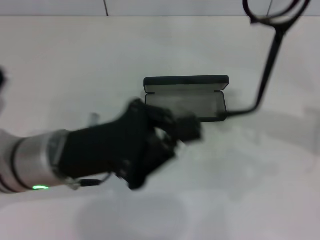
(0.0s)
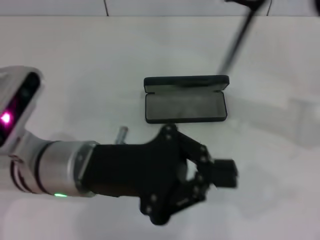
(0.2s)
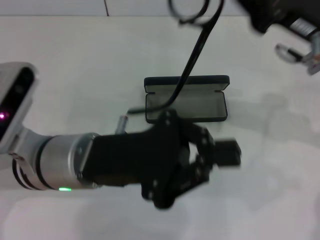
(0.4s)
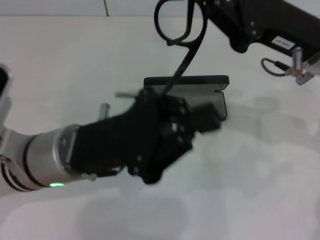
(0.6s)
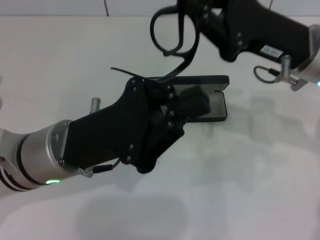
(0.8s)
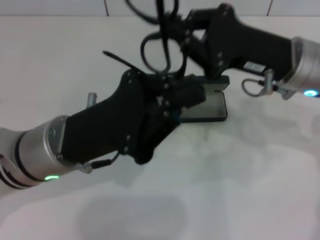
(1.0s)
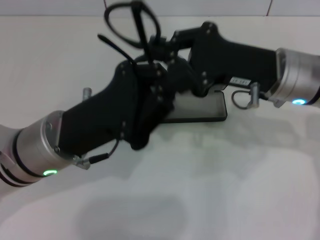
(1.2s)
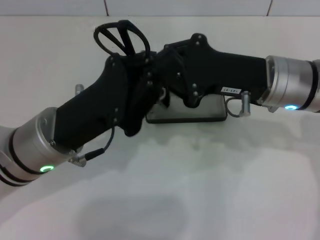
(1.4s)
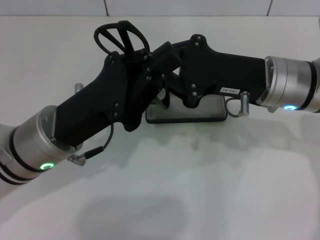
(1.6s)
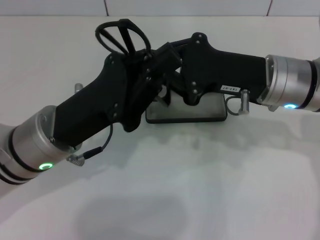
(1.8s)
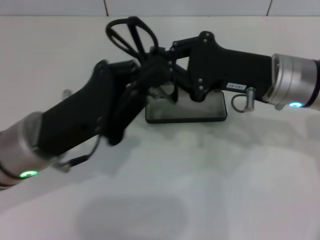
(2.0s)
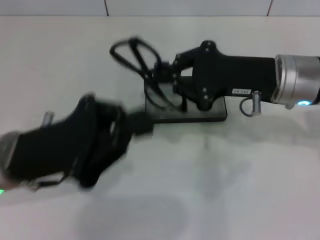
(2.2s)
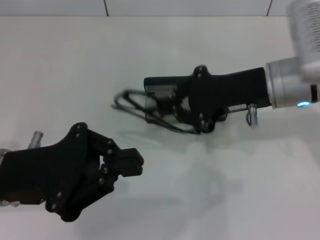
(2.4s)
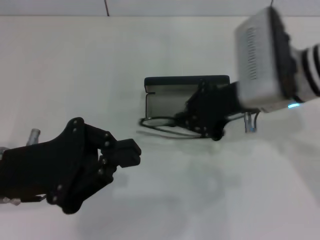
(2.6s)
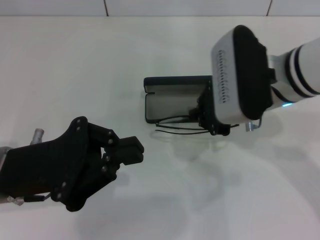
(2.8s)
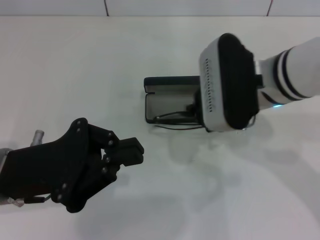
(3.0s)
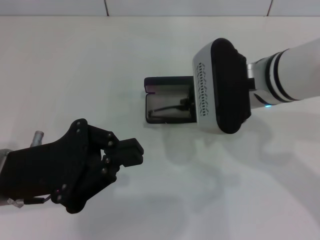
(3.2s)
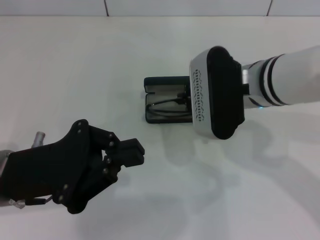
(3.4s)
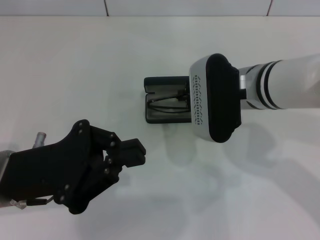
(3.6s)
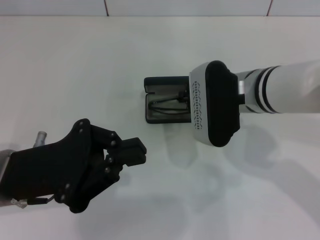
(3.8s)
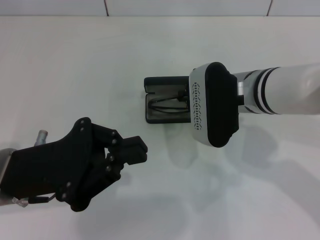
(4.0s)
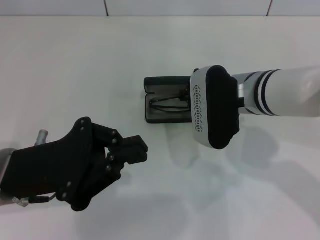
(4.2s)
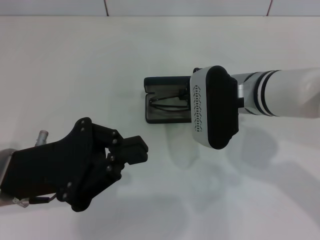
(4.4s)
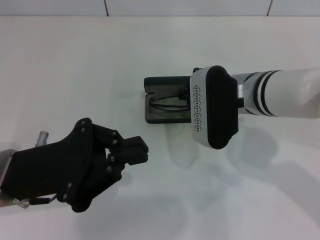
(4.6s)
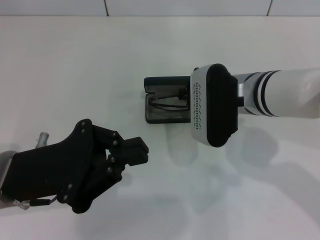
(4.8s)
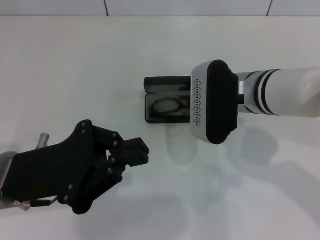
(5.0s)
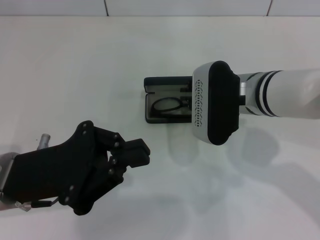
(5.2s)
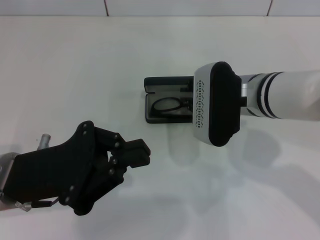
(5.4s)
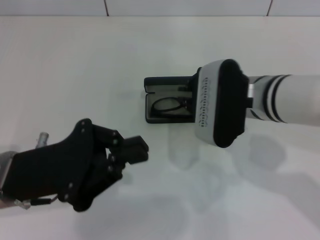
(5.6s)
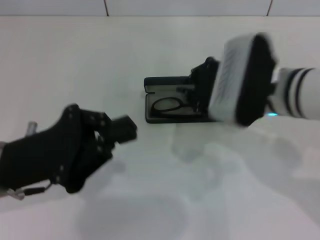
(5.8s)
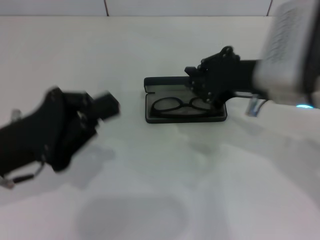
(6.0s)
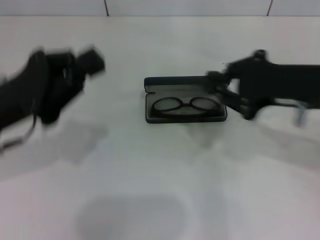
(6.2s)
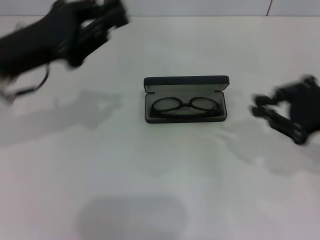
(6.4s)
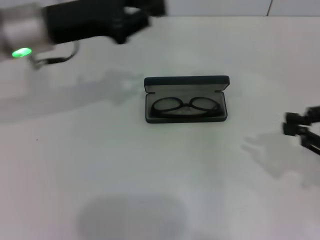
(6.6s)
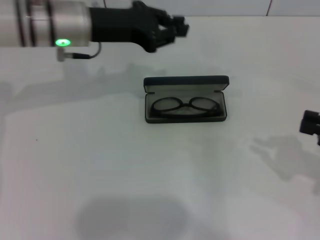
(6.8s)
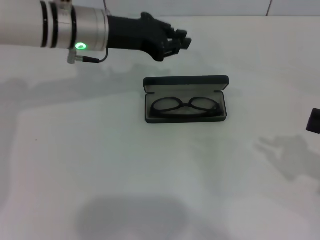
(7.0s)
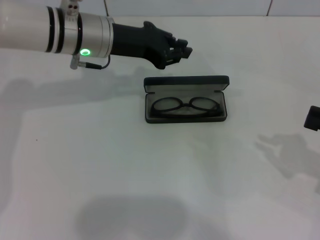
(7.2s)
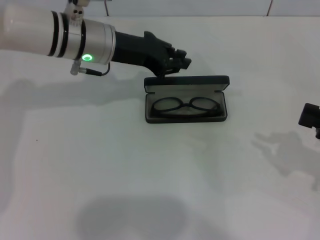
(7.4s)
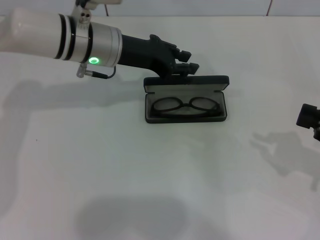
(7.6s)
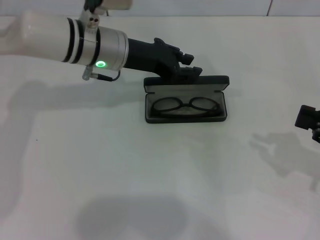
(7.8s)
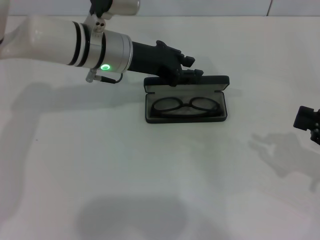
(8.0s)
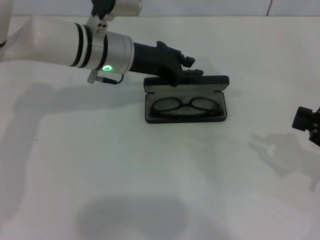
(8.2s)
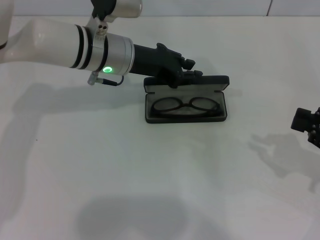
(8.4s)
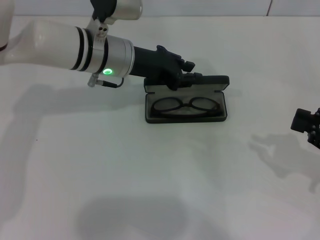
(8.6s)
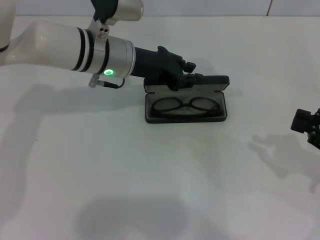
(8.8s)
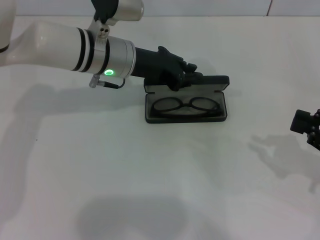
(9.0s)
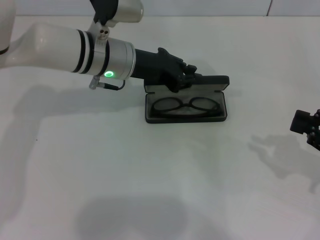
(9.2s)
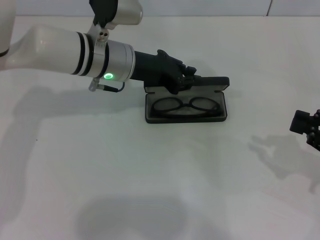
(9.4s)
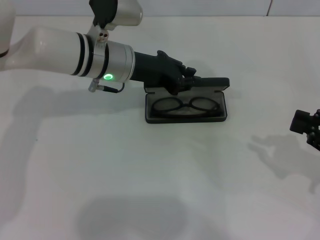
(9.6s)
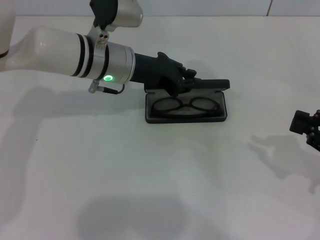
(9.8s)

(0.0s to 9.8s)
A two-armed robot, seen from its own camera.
Step, 2.0s - 5.4s: Put the glasses into the case with your right hand.
0.0s - 1.4s: The right gripper moves to the left and downward, approximately 15 cm.
1.4s - 2.8s: The left gripper moves to the left, roughly 5 cm.
2.8s - 4.2s: The right gripper shifts some 5 cm downward.
4.2s - 5.6s: The grippers make only small movements.
5.6s - 7.0s: The right gripper shifts approximately 25 cm to the right; the left gripper heads forward, covering roughly 20 cm.
7.0s - 8.4s: The grippers stay close to where they were, moving slightly.
8.4s - 9.8s: The two grippers keep their place.

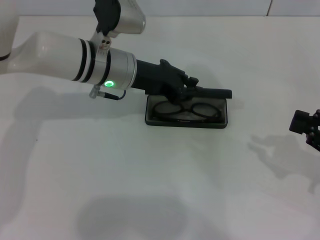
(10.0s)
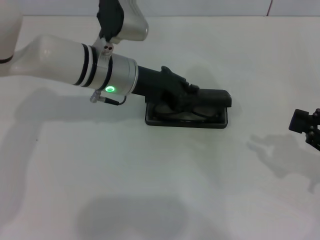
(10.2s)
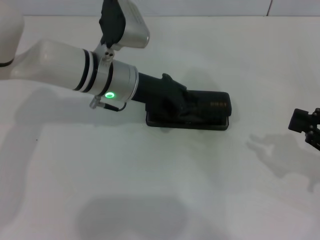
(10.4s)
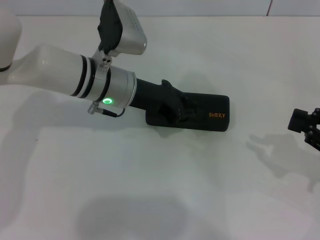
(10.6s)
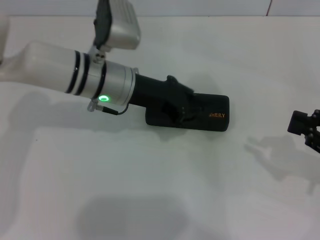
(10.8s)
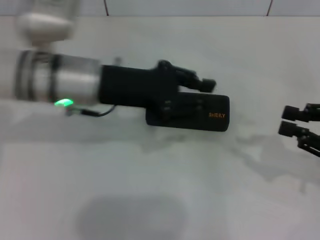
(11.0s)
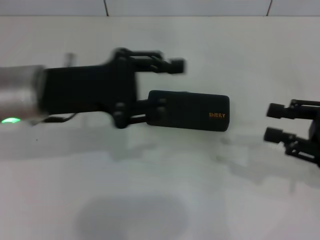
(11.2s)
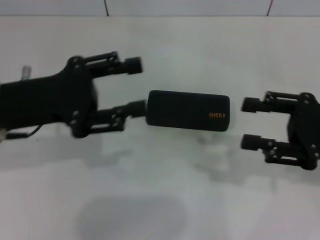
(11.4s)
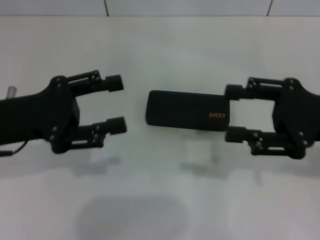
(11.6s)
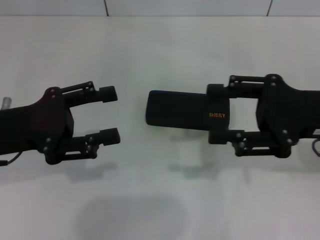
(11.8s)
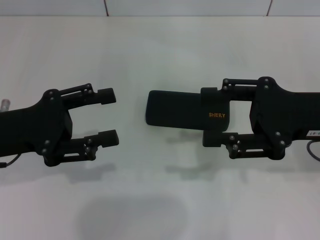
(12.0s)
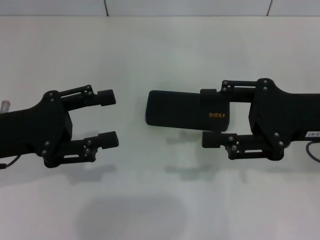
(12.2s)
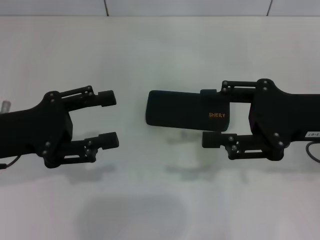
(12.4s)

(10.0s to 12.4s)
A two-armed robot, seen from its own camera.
10.0s - 11.2s: The left gripper travels backward, to the left and upward by roughly 15 cm.
11.2s - 12.4s: Both grippers travel together to the left, roughly 5 cm. The right gripper opens up; the left gripper opens up.

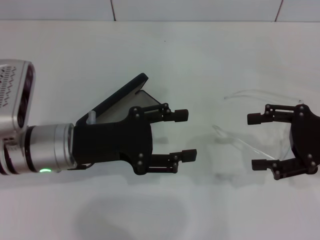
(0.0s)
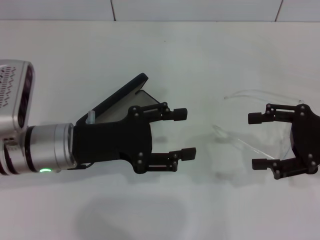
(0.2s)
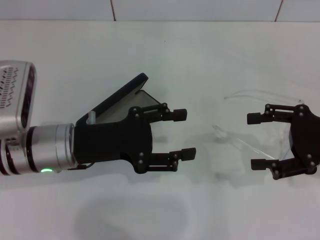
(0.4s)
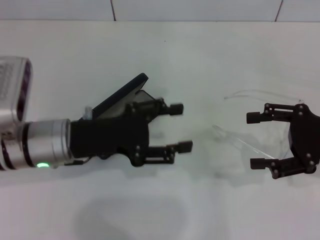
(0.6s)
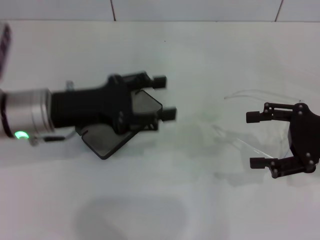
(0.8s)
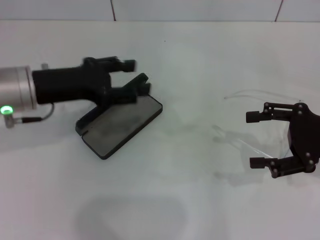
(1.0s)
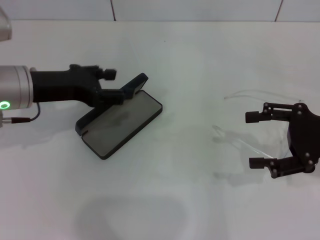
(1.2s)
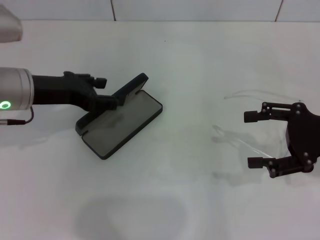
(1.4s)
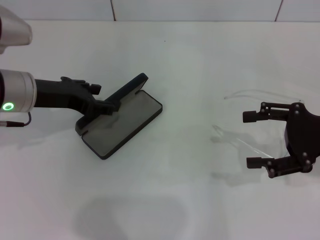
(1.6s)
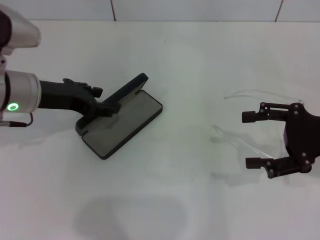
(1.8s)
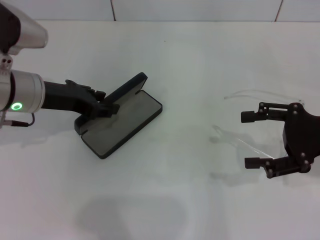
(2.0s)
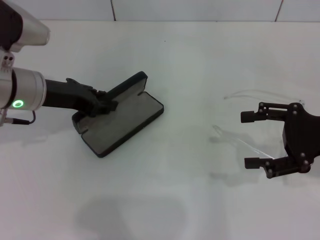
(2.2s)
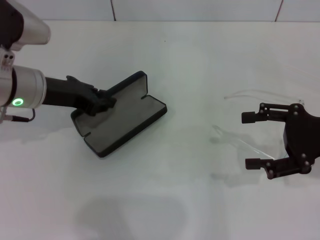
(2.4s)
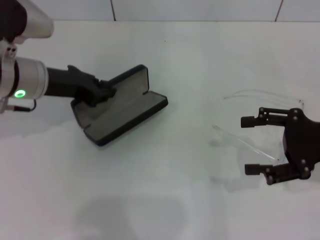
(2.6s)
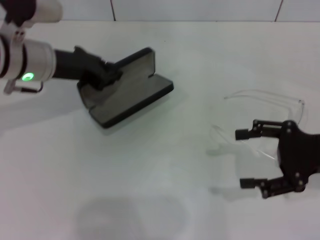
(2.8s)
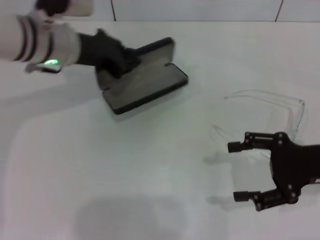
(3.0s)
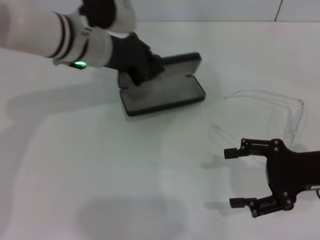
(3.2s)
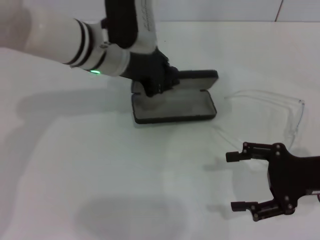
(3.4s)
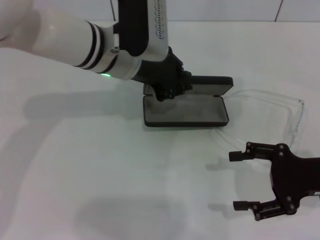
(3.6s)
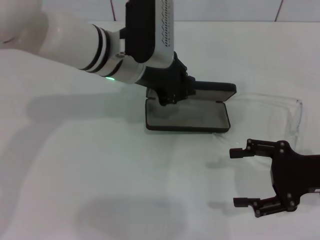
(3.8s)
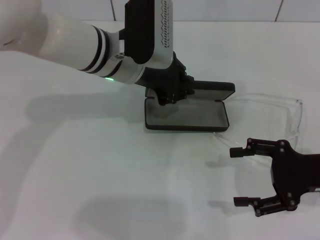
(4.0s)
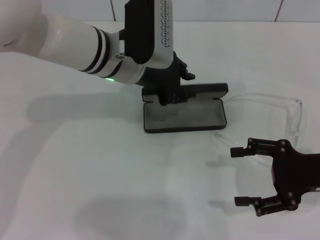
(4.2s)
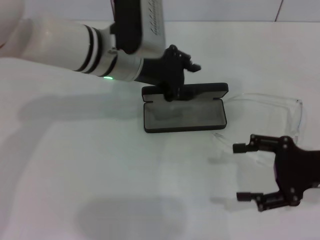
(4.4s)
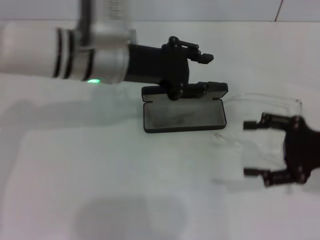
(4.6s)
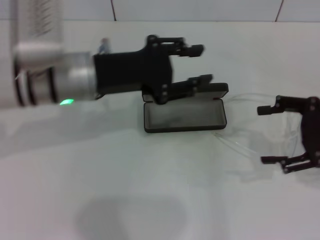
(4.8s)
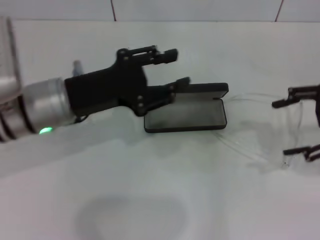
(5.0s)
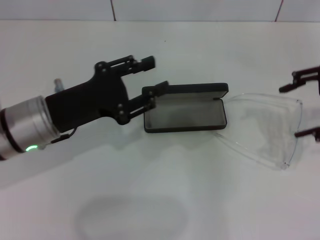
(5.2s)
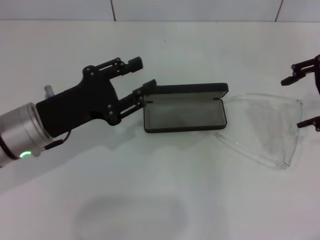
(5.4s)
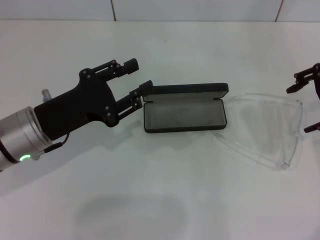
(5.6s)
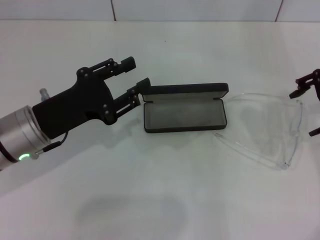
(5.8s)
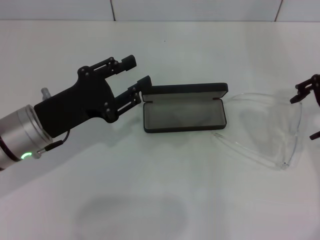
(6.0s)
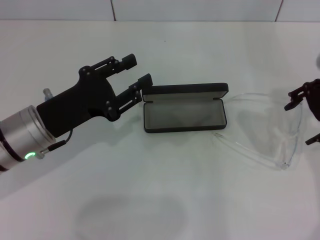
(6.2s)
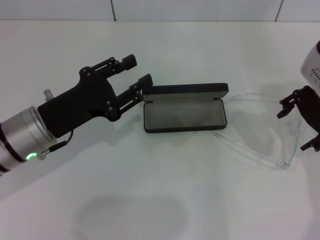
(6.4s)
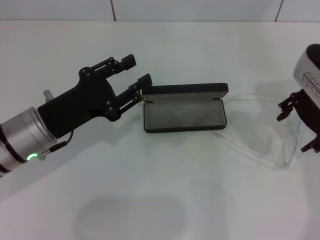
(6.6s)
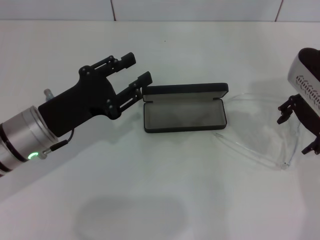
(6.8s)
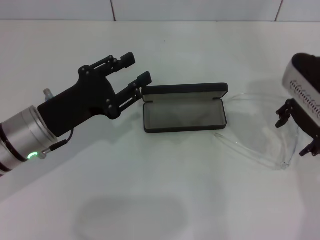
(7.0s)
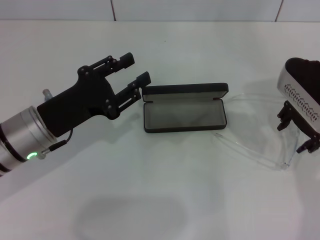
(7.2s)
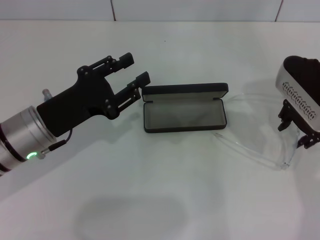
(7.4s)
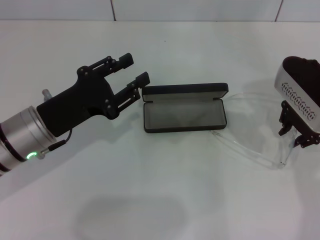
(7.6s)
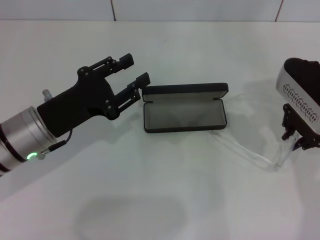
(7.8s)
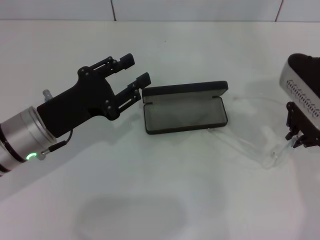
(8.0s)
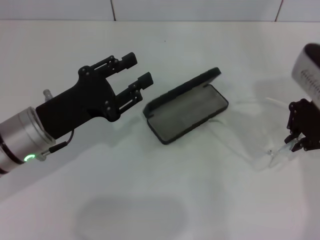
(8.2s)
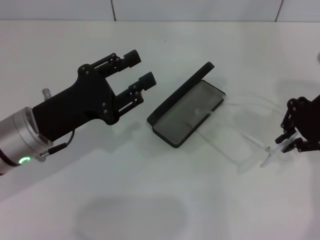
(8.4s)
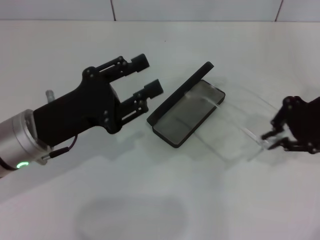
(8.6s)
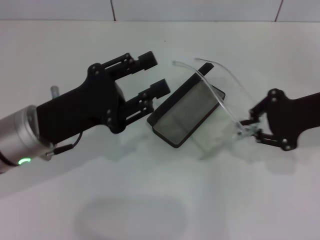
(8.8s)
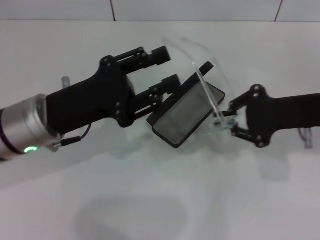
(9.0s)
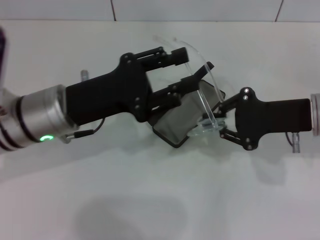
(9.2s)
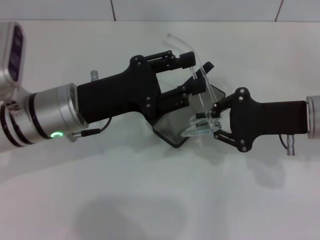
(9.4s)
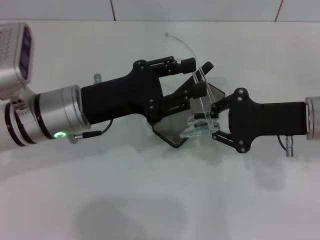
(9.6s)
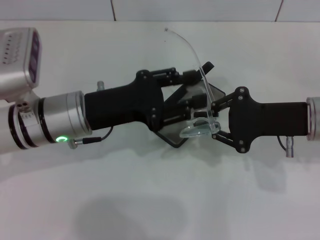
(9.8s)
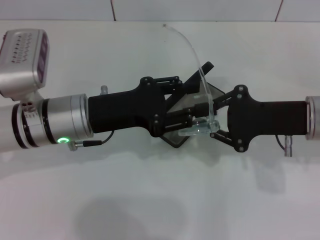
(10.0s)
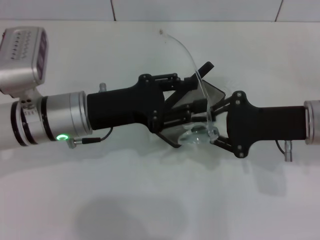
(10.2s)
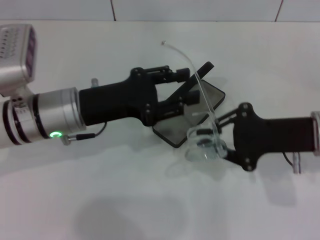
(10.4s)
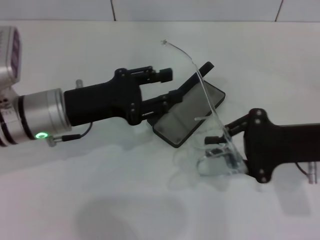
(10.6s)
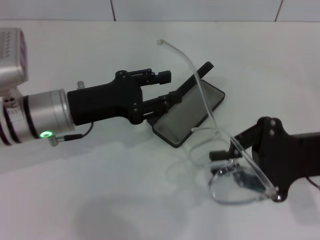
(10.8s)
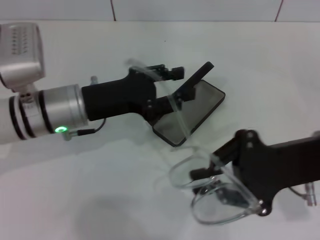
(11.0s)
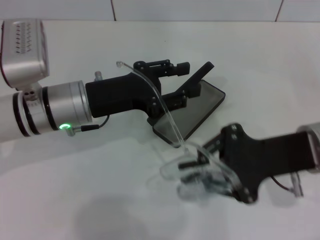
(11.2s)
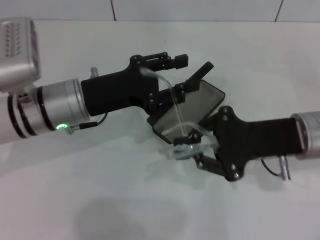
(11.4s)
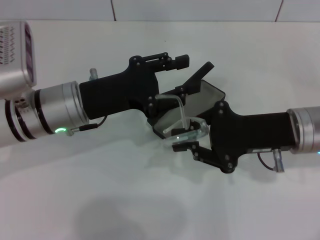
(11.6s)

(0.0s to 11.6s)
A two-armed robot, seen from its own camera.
Step, 0.0s - 2.2s: Grab the glasses case with your left hand.
Step, 2.6s - 4.4s: Place the glasses case in the center of the table with your left hand.
Step, 4.6s - 7.6s: Grab the eyeglass frame with your right hand.
0.0s - 1.4s: The left gripper heads forward and to the left, covering some 10 cm.
1.4s - 2.8s: The left gripper closes.
2.8s - 4.4s: The left gripper is displaced to the right by some 10 cm.
4.4s - 5.8s: The right gripper shifts some 15 cm upward and forward; the left gripper goes about 20 cm to the left, backward and downward, and opens up.
5.8s - 7.2s: The right gripper is displaced downward by about 5 cm.
7.2s - 8.8s: The right gripper goes about 5 cm backward, and closes up.
8.8s - 10.2s: The right gripper moves some 5 cm. Meanwhile the left gripper changes place by some 5 cm.
